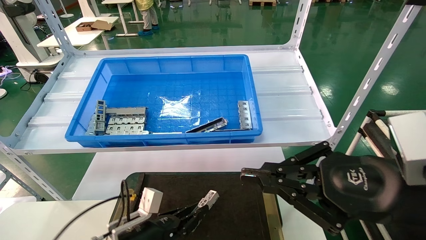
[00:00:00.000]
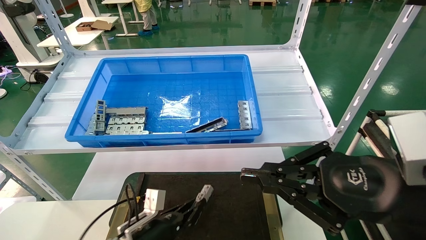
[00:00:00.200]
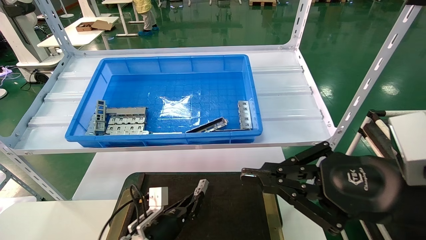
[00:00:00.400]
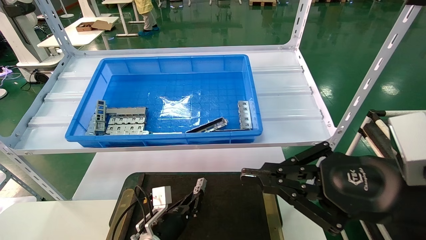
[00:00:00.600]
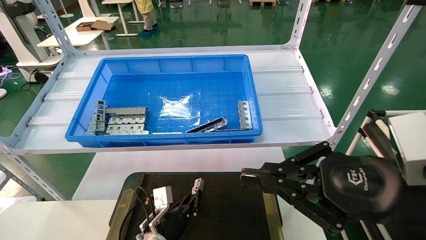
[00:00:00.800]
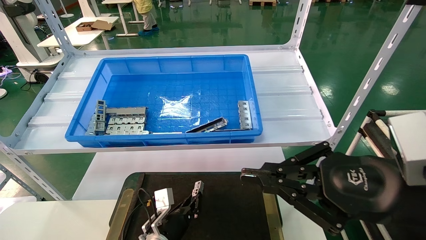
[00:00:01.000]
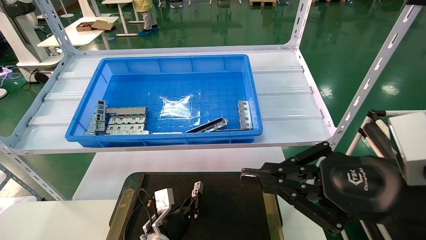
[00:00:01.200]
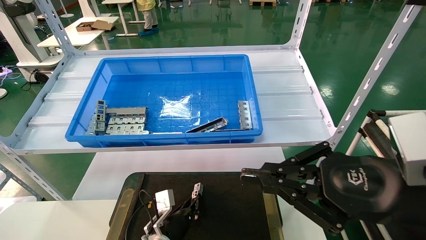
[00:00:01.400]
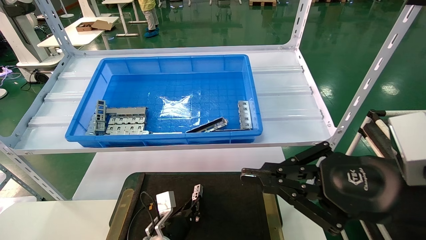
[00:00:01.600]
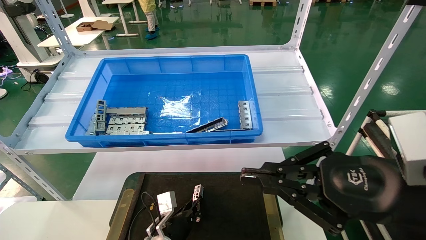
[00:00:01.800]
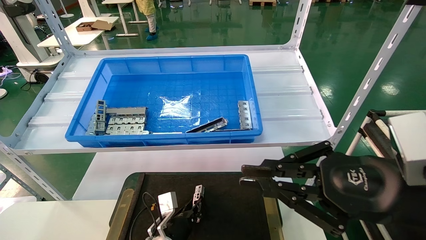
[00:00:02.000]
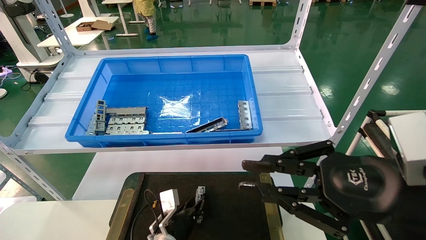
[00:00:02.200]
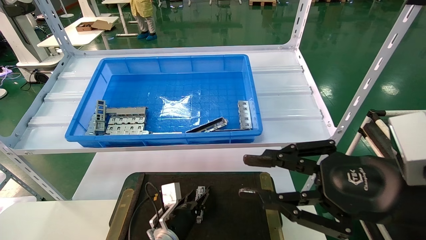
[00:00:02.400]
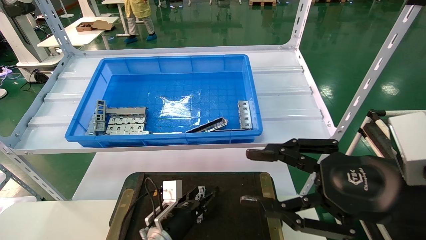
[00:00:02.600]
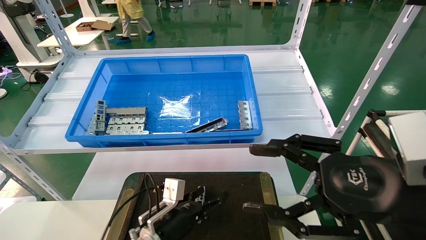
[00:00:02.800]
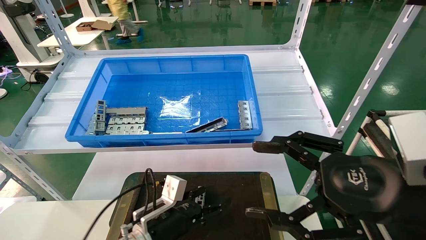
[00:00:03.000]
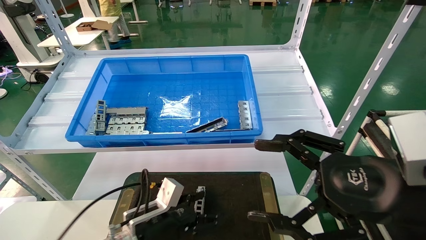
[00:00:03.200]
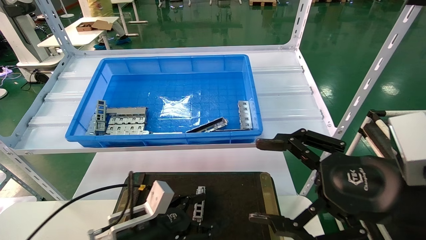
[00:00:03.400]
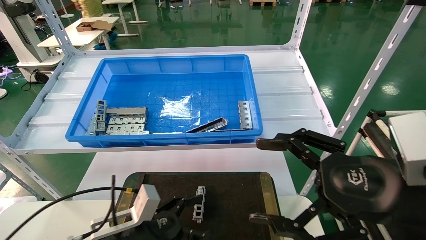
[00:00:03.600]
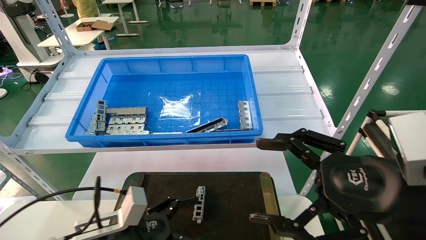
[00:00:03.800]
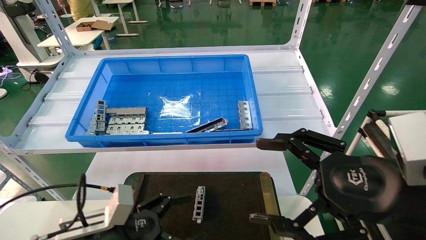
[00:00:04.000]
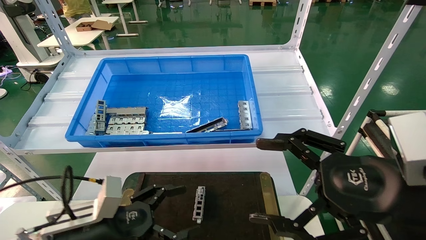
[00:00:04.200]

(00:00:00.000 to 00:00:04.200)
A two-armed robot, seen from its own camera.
Task of the whole recording: Grasp the part with one hand and place it on the black container.
Step, 00:00:00.000 - 00:00:02.200: Place the front USB bracket into the box.
00:00:00.000 - 00:00:01.400: The left gripper travels downward, forward and to the right by some 10 cm.
00:00:01.400 - 00:00:02.800: The left gripper heads upward, covering about 10 cm, and opens up; the right gripper opens.
00:00:02.800 - 00:00:04.200: The right gripper opens its fingers. Meanwhile the left gripper goes approximately 15 cm to the left, upward and backward.
